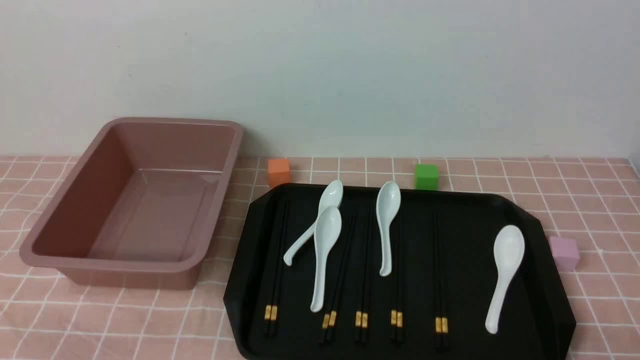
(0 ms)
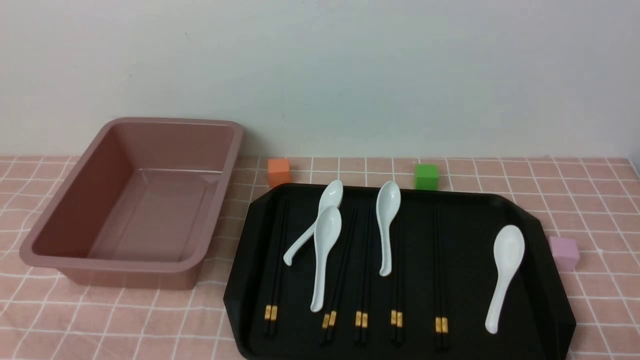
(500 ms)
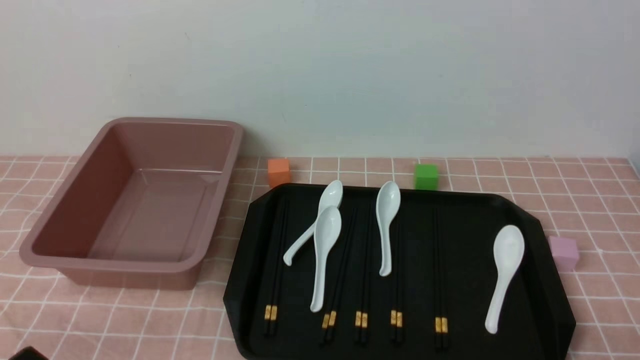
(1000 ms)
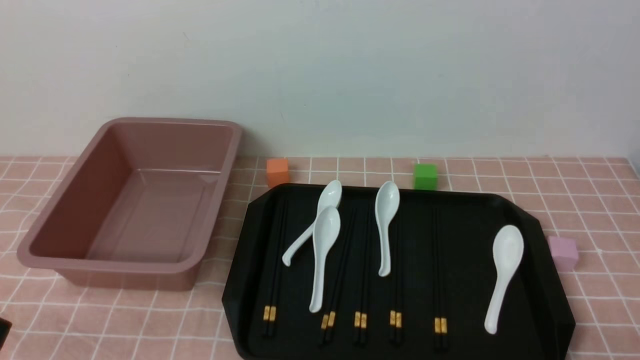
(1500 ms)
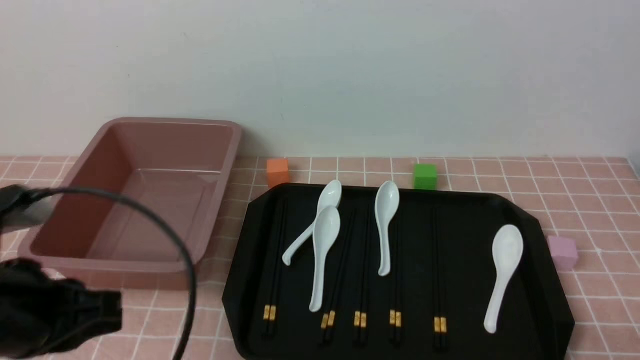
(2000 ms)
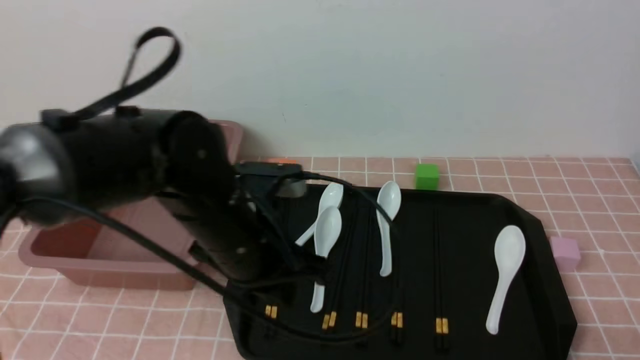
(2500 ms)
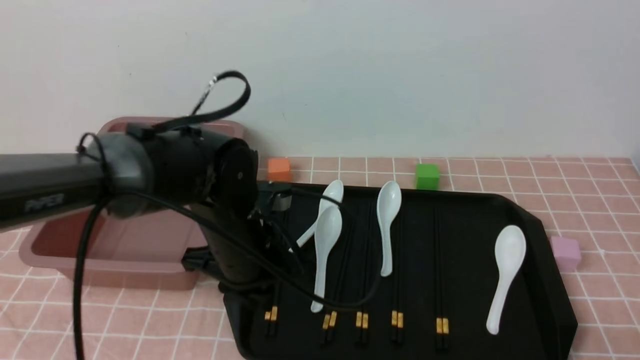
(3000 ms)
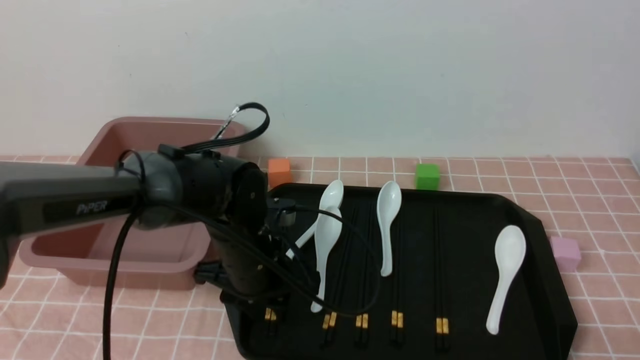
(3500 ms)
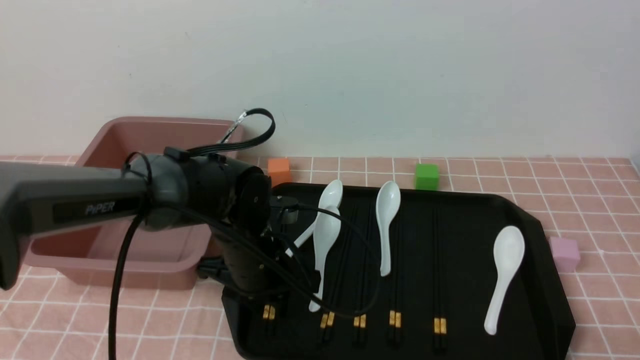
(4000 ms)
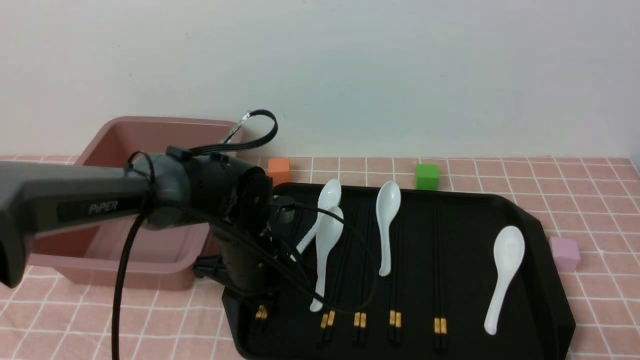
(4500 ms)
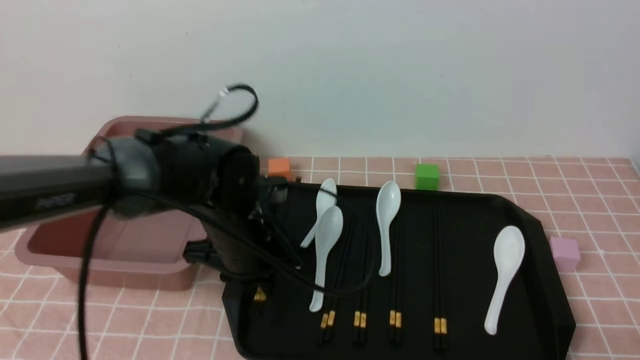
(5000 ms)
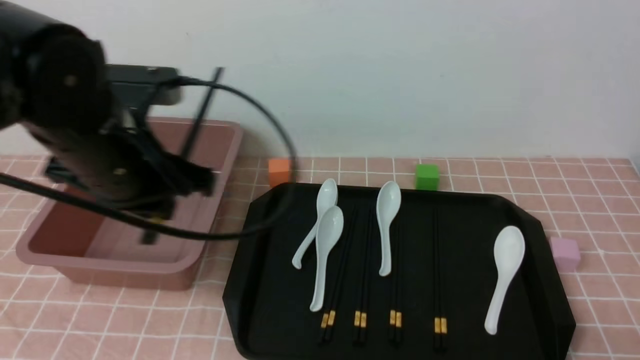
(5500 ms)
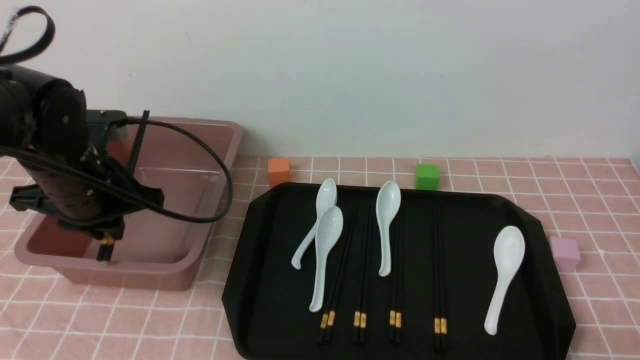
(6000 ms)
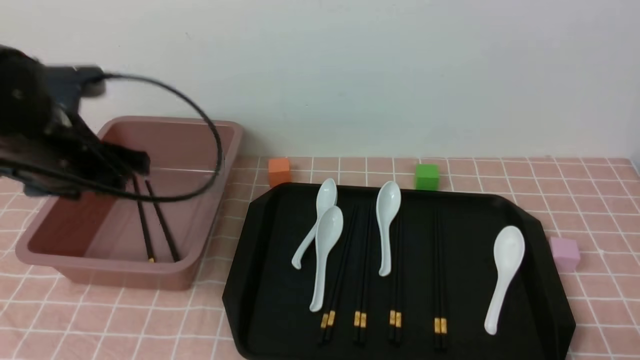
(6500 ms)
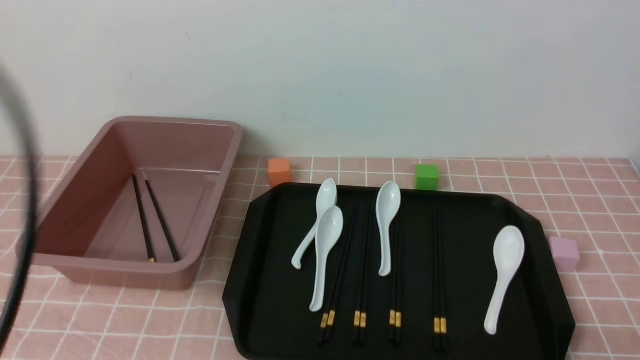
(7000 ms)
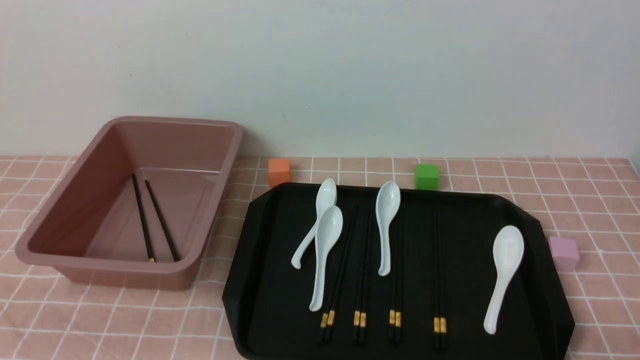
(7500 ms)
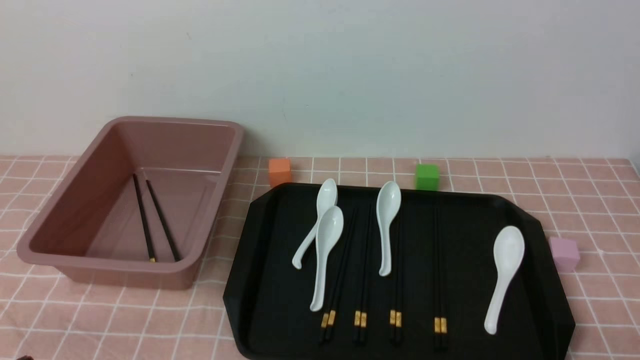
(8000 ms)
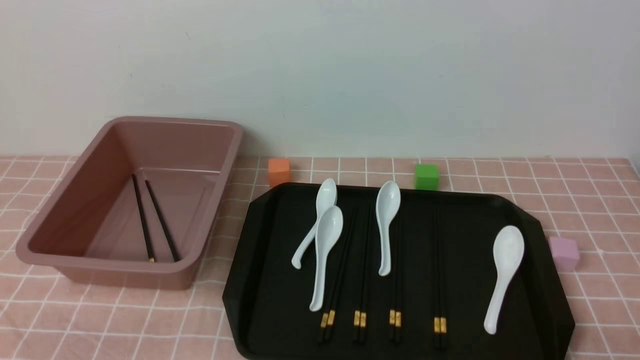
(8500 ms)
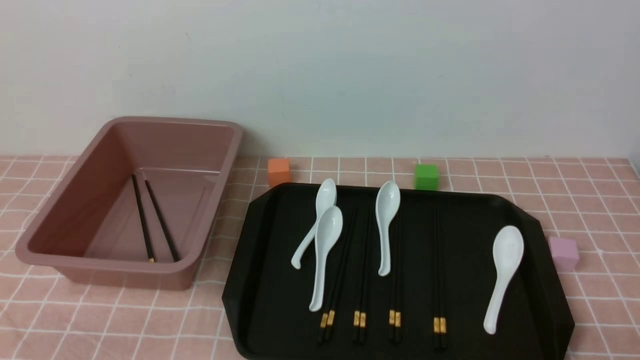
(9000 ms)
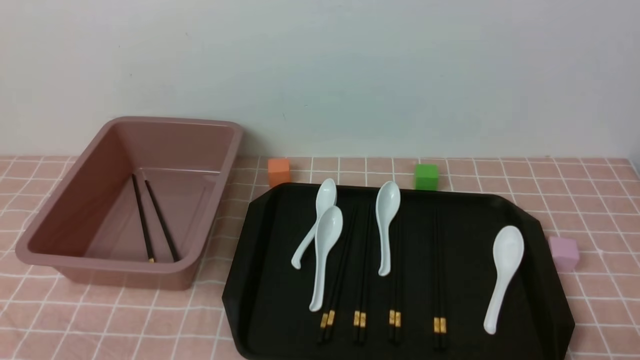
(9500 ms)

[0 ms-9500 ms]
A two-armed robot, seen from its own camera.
Step, 0 ms to 5000 ms: use the left arm to grab a pair of chopsticks.
Step, 5500 ms to 6500 ms: use the left arm to put the chopsticks into the lunch box.
2000 ms to 4000 ms: The left gripper travels forward, to the right and downward by some 30 cm, and opens its fingers.
4000 ms to 5500 ms: The left gripper is displaced upward and to the left by roughly 15 cm, and closes.
5500 ms to 7500 ms: The left gripper travels backward and to the left by some 25 cm, and closes.

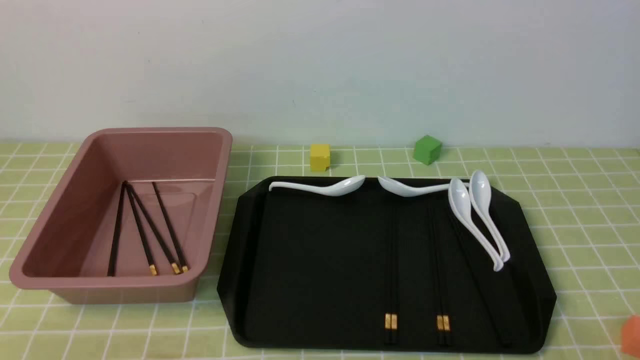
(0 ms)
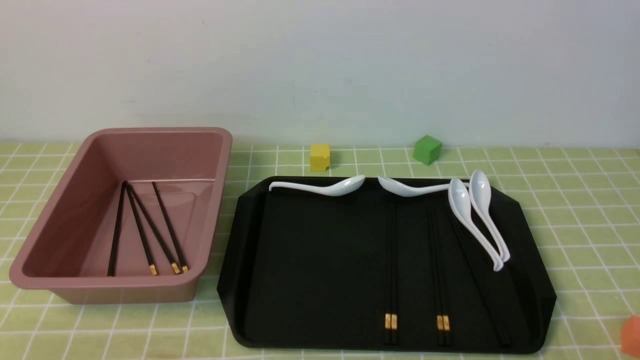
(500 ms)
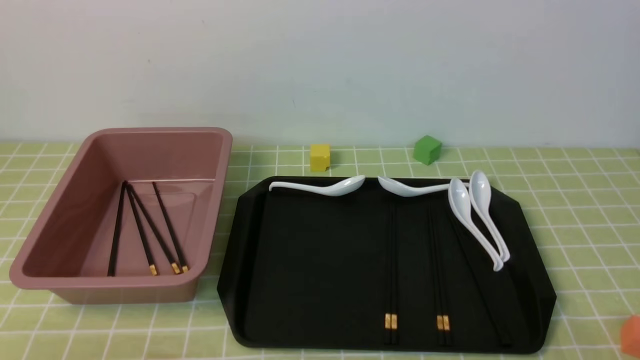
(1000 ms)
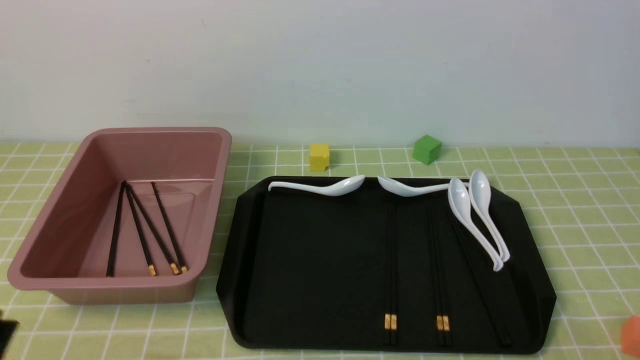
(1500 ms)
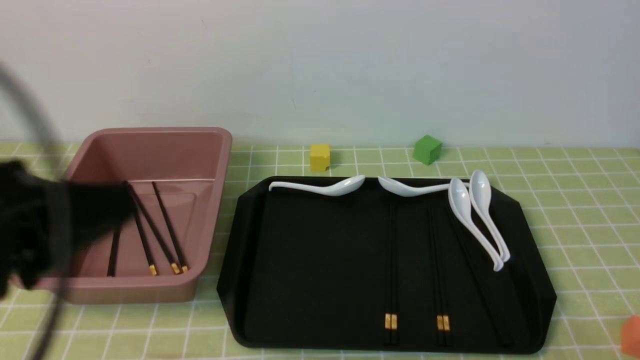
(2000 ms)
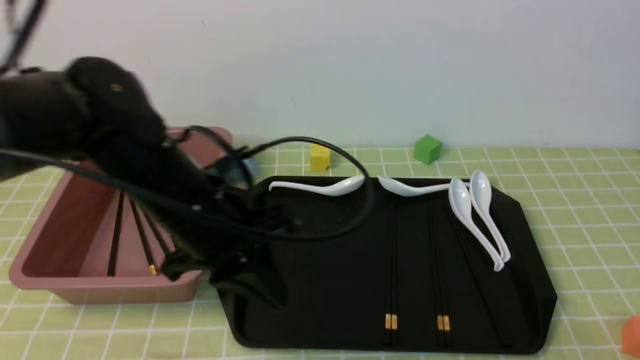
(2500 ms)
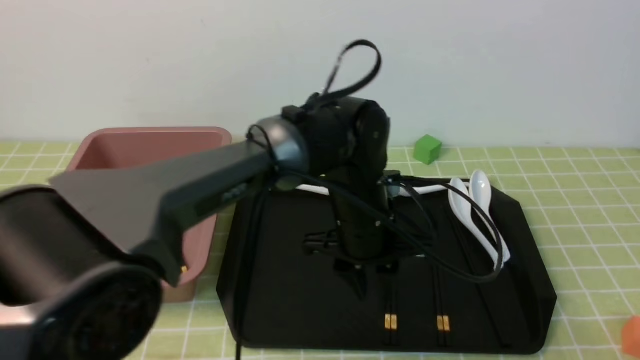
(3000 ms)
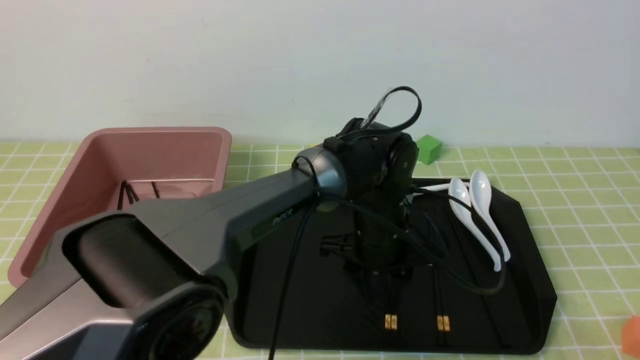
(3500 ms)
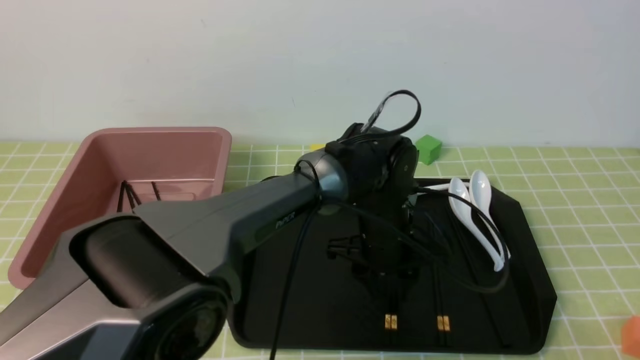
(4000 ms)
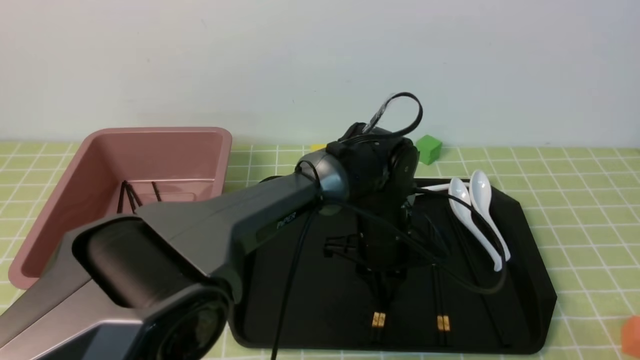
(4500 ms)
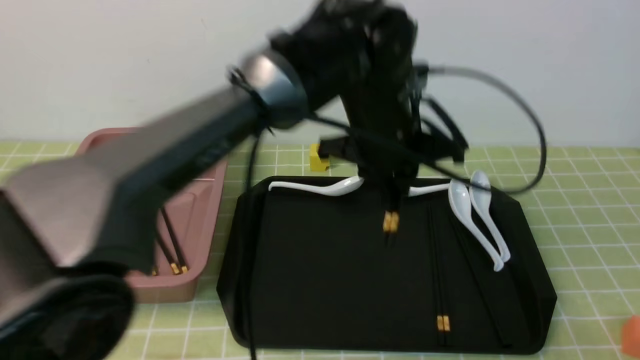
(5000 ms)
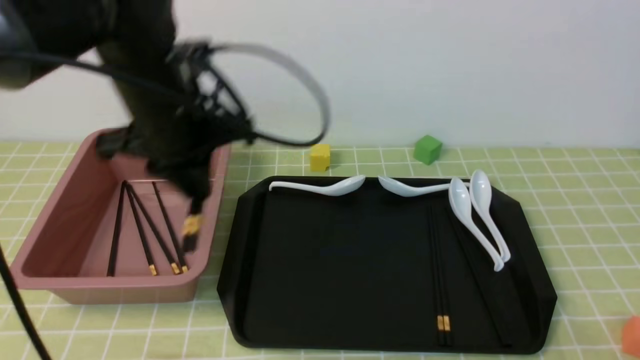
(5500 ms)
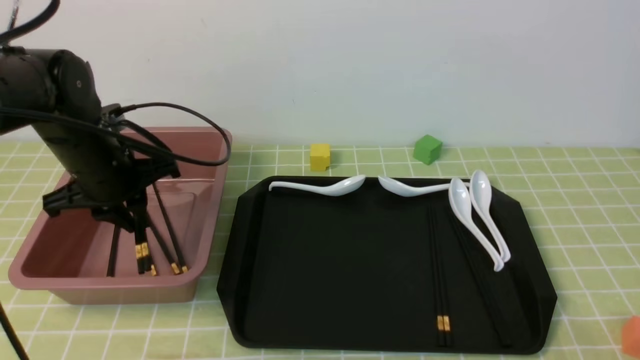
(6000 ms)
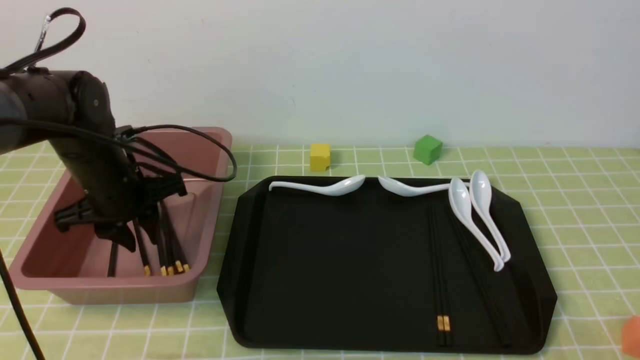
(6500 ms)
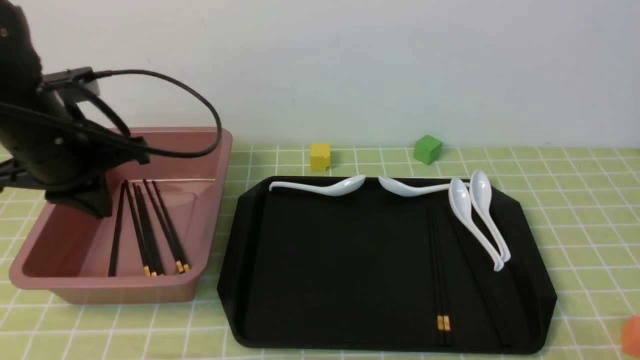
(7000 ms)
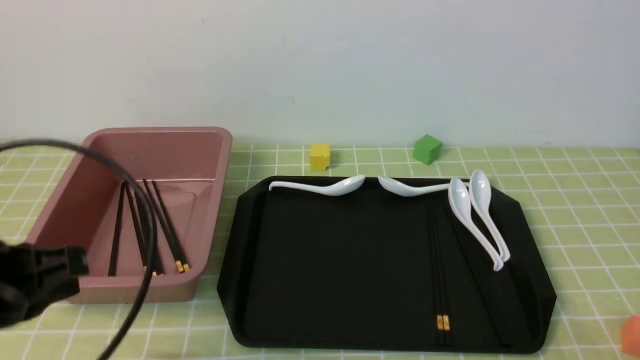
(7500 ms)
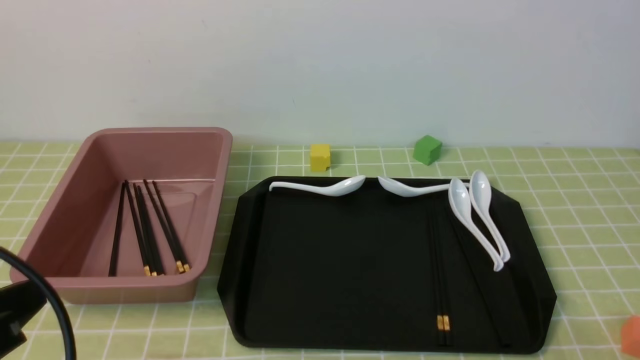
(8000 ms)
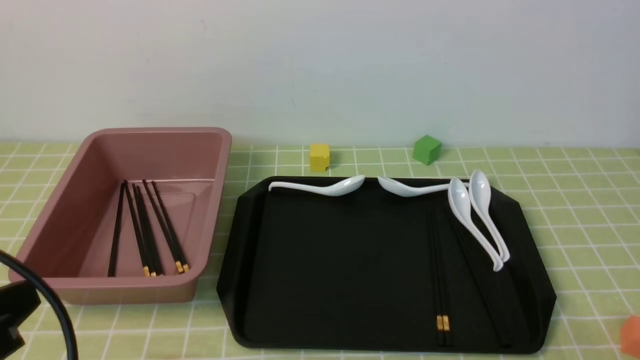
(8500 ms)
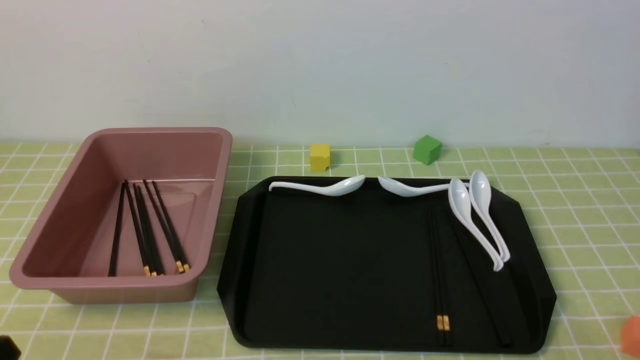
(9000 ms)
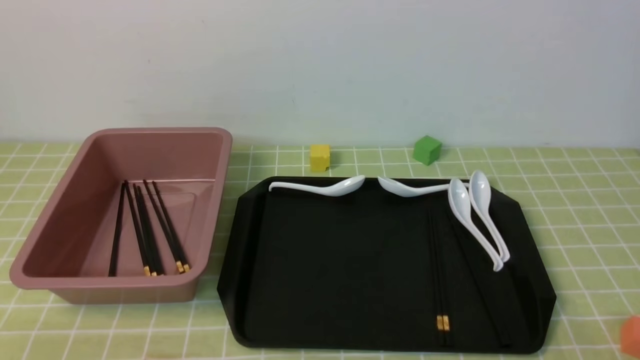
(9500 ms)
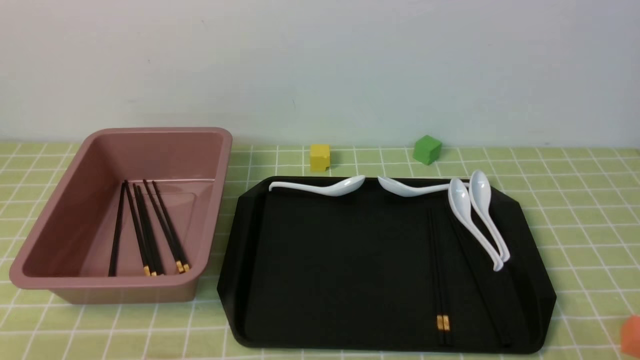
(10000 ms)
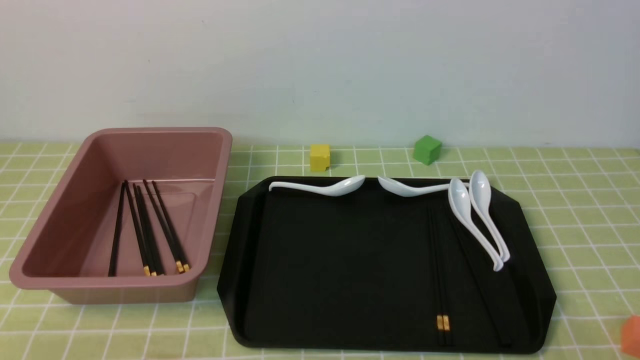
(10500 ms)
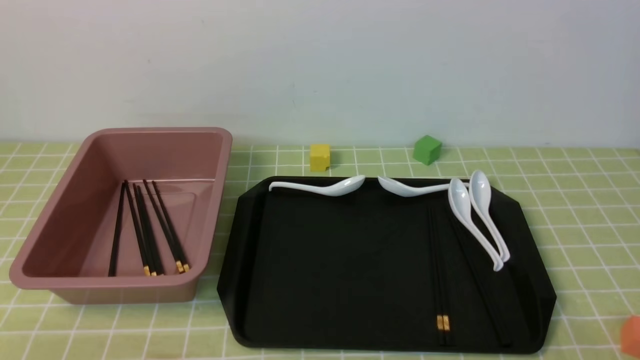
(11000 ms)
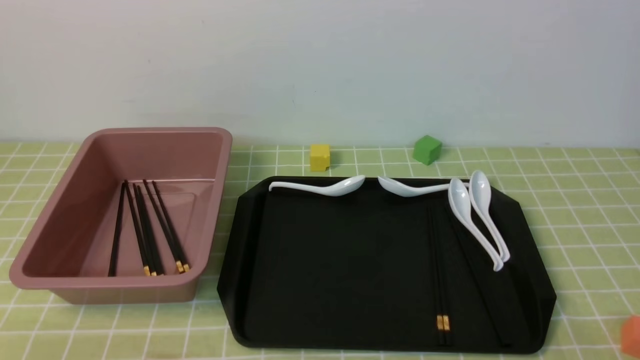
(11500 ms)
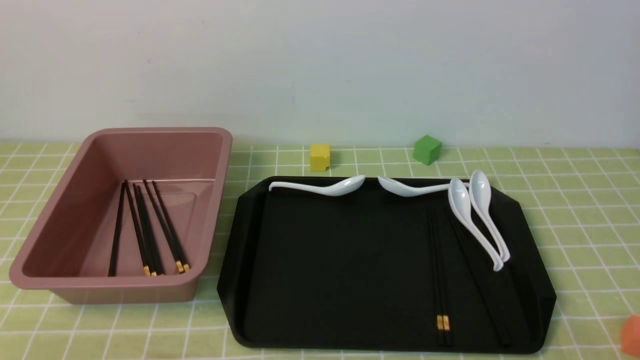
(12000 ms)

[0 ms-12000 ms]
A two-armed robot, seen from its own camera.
Step, 0 ms to 5000 ms: use the left arm to grab a pair of chopsticks.
Step, 5500 ms to 6500 ms: use the left arm to put the chopsticks into the lunch box.
0 ms to 2000 ms: The left gripper moves upward and forward, some 20 cm.
2000 ms to 4000 ms: The left gripper heads to the right, forward and downward, covering approximately 40 cm, and opens.
4000 ms to 6000 ms: The left gripper heads to the left, covering roughly 30 cm, and closes.
6000 ms to 8000 ms: The left gripper shifts approximately 30 cm backward, and closes its fingers.
8000 ms to 10000 ms: The left gripper is displaced downward by about 10 cm.
10000 ms to 12000 ms: Both grippers stay about where they are.
